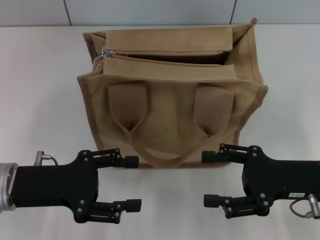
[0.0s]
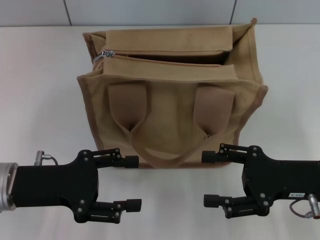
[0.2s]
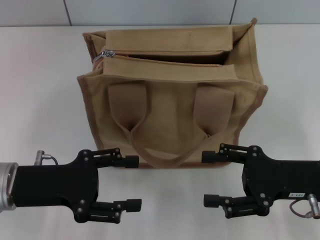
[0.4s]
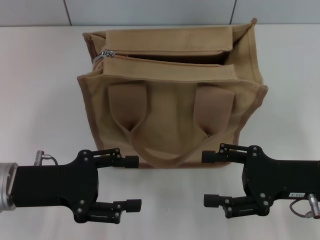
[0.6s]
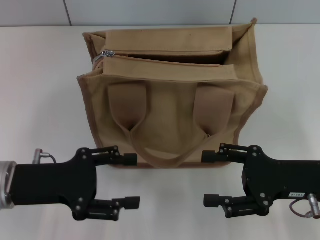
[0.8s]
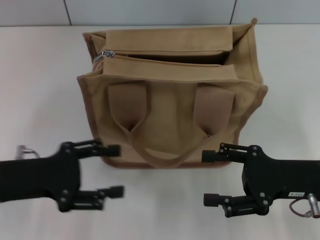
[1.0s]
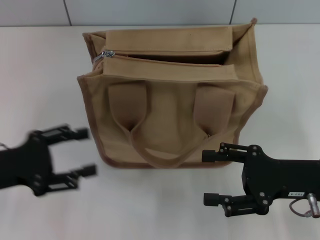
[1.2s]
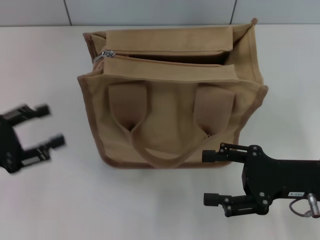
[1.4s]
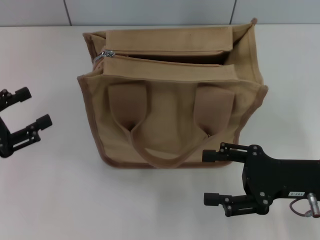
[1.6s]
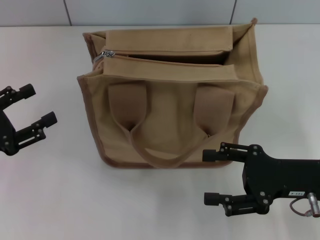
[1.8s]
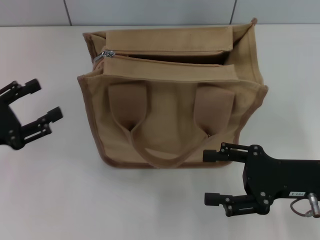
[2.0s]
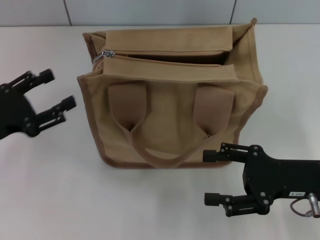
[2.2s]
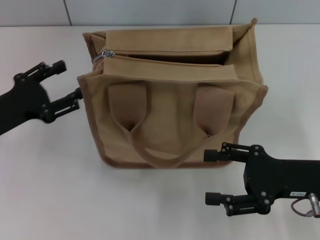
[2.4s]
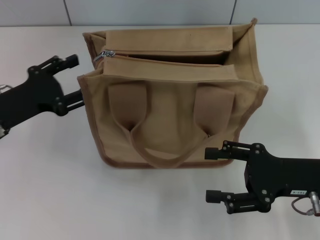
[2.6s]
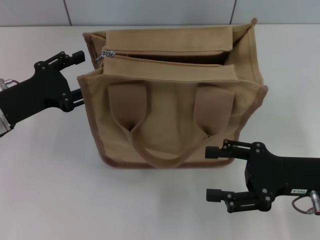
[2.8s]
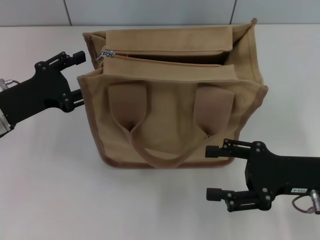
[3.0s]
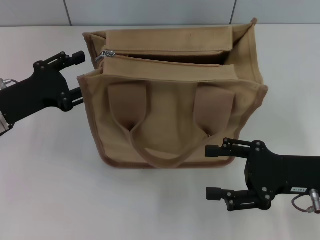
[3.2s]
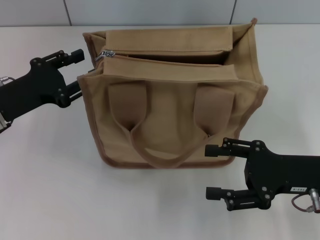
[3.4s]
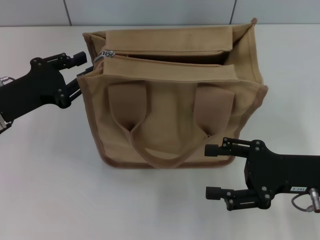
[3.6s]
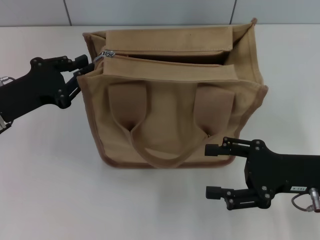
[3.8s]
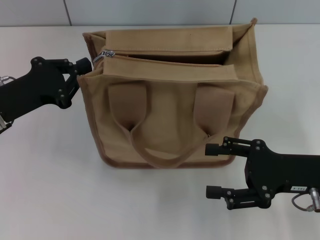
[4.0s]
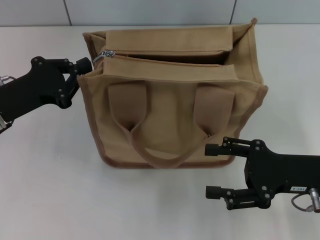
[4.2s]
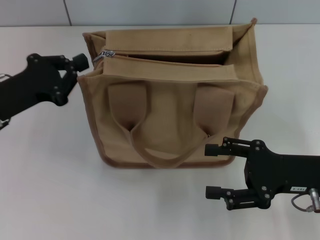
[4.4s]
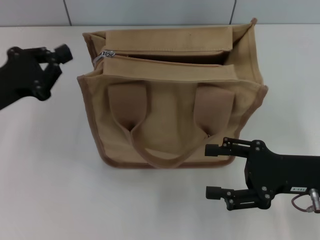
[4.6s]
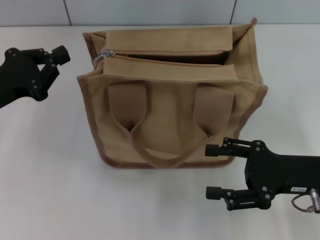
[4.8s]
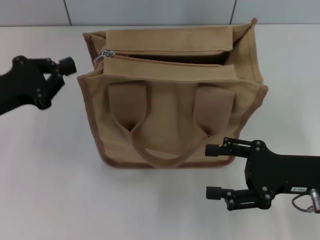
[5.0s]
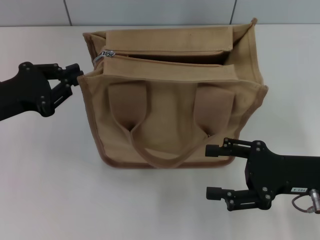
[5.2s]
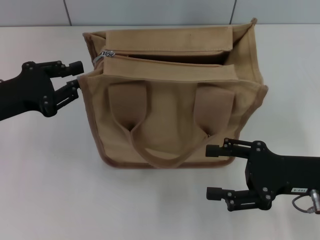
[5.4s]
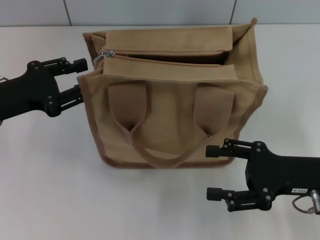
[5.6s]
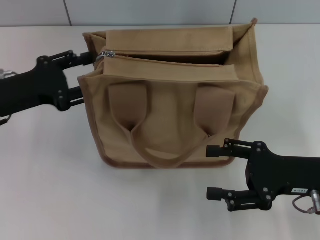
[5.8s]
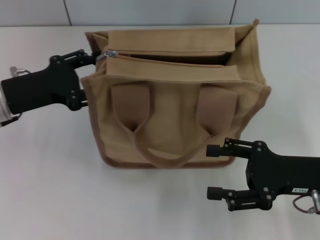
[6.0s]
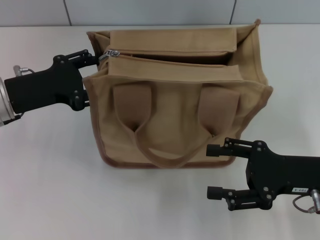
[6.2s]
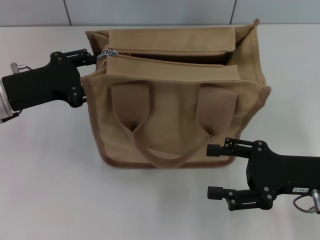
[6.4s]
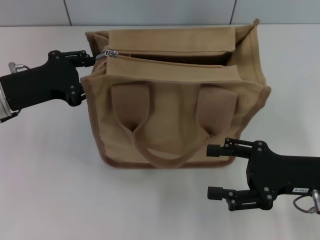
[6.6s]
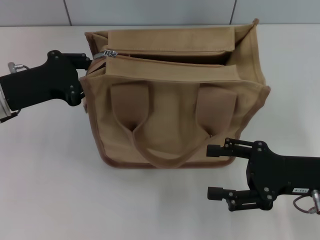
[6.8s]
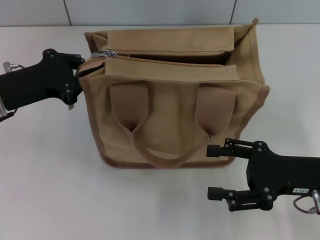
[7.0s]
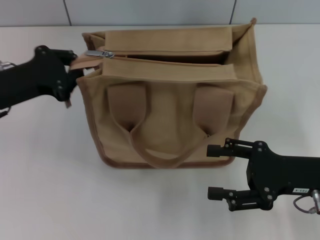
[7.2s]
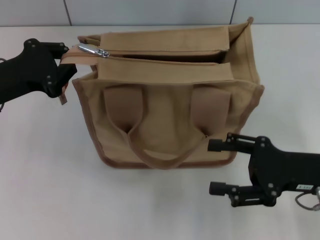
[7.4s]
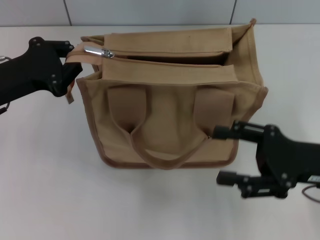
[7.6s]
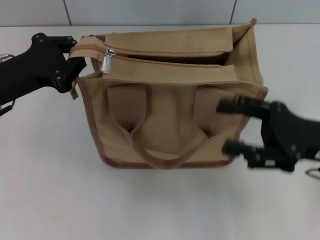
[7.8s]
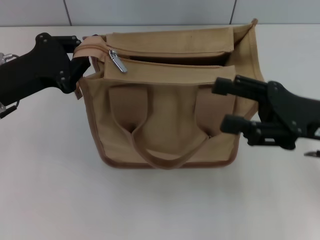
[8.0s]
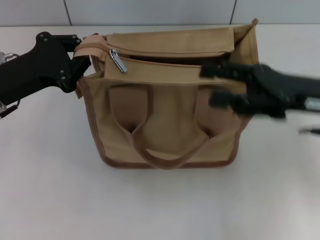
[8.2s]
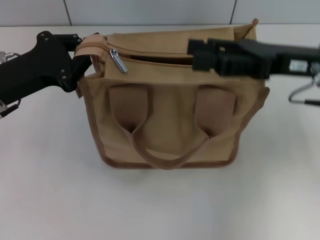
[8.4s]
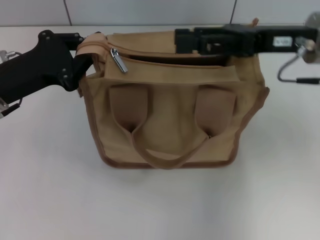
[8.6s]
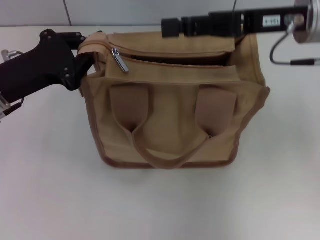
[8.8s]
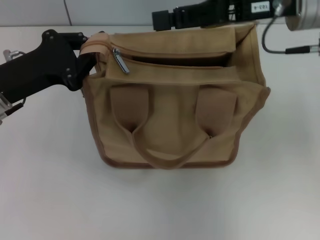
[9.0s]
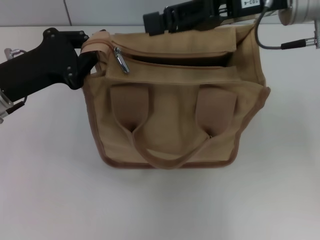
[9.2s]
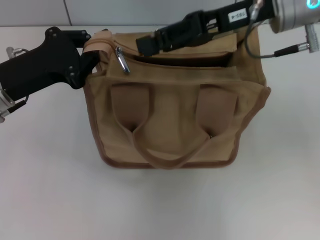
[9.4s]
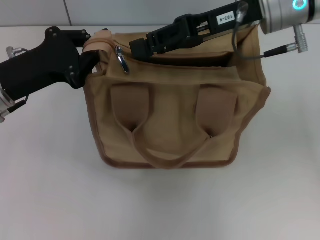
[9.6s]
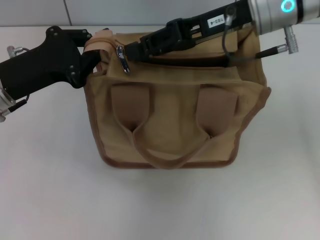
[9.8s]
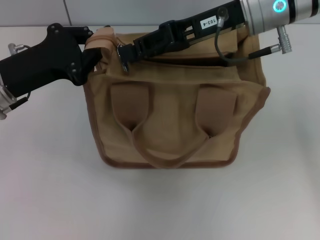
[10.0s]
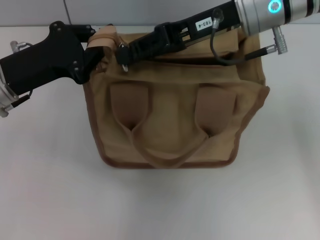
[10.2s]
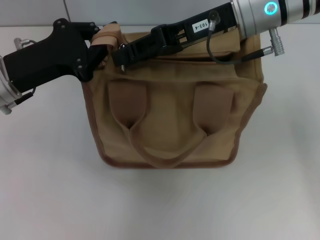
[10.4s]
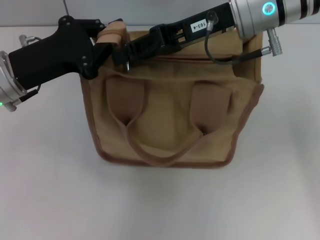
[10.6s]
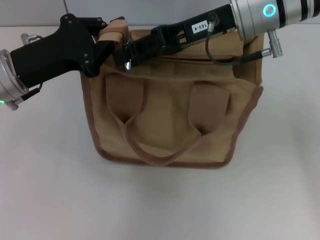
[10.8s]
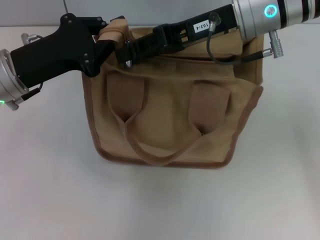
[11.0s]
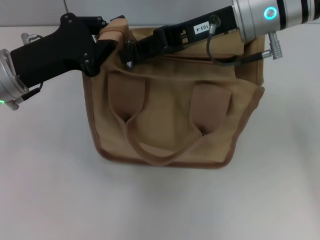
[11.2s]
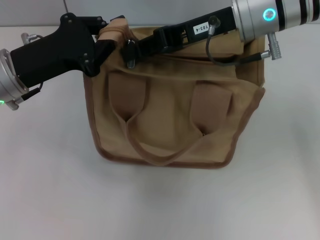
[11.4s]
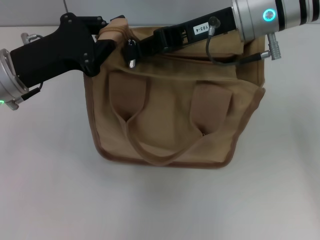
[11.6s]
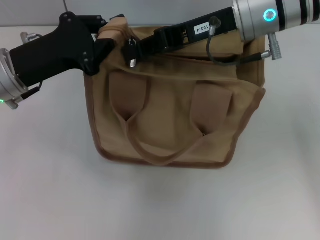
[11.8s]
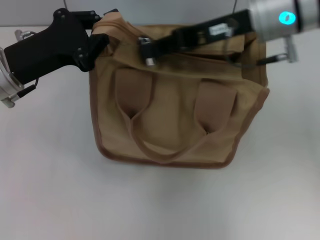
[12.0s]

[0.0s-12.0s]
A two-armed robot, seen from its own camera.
0.0s to 1.6s: The left gripper moves to the left, approximately 10 cm.
1.6s to 3.0s: The left gripper shifts roughly 10 cm forward and to the right.
3.0s to 4.4s: The left gripper closes its fingers.
4.4s to 6.0s: The left gripper opens its fingers.
6.0s to 7.6s: The left gripper closes.
7.6s to 9.0s: The right gripper is displaced forward, upward and to the left by some 20 cm.
9.0s to 10.4s: The right gripper travels to the left by approximately 5 cm.
10.4s to 12.0s: The right gripper closes.

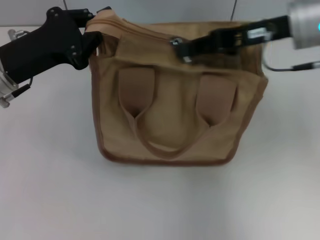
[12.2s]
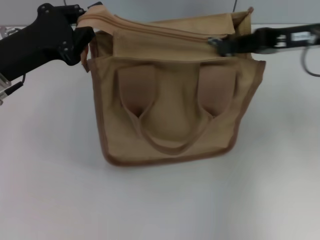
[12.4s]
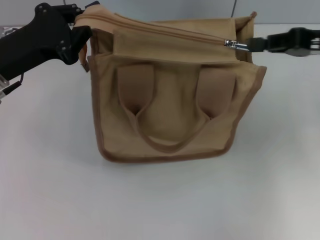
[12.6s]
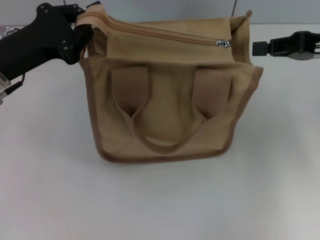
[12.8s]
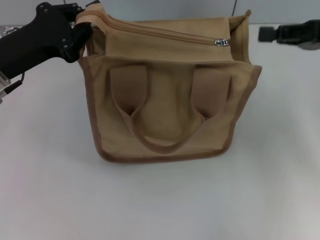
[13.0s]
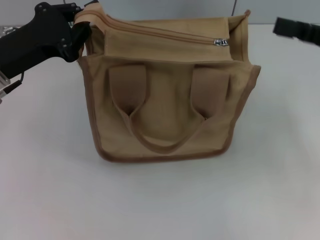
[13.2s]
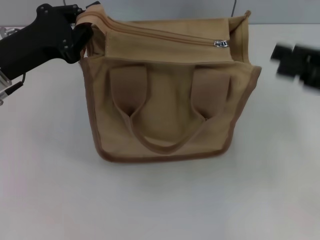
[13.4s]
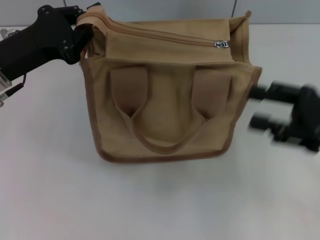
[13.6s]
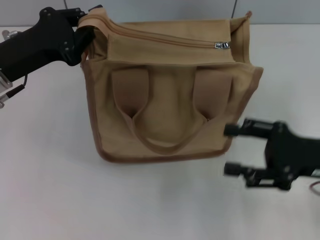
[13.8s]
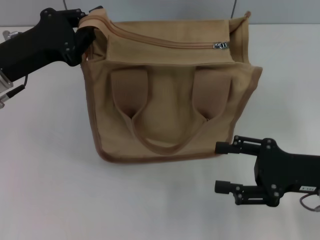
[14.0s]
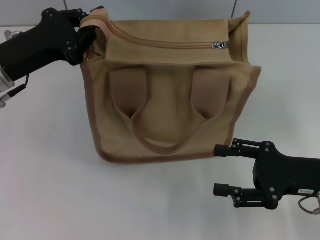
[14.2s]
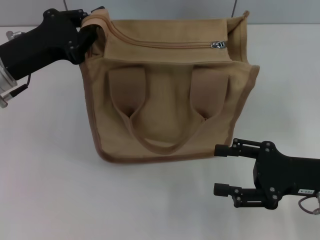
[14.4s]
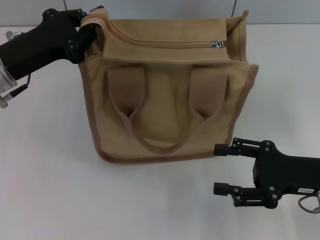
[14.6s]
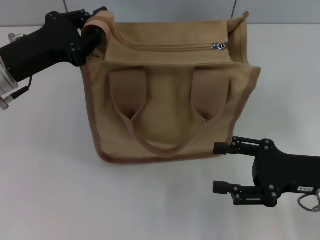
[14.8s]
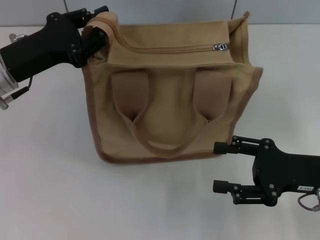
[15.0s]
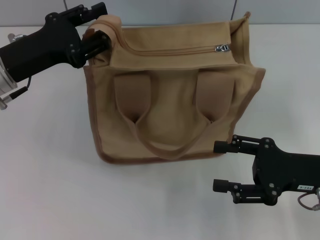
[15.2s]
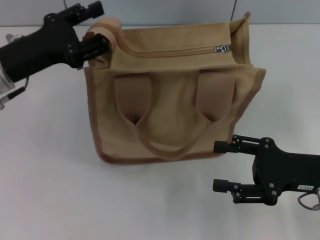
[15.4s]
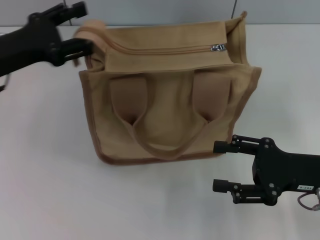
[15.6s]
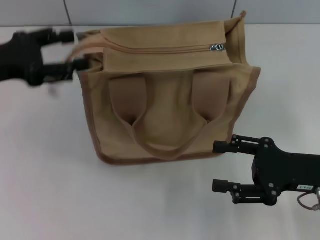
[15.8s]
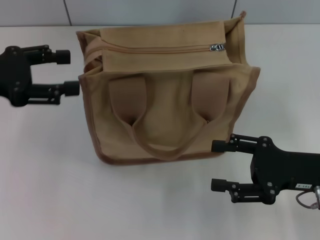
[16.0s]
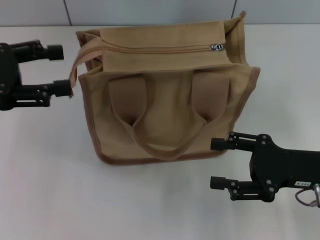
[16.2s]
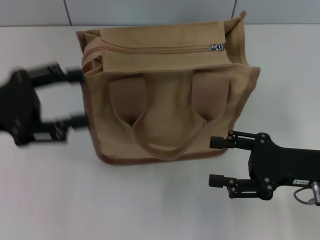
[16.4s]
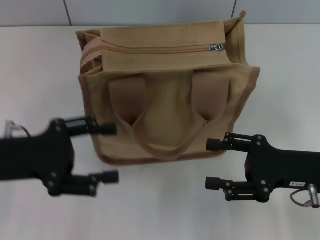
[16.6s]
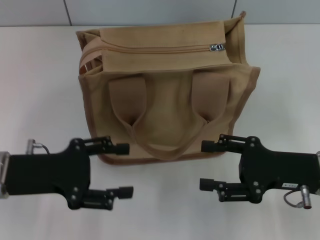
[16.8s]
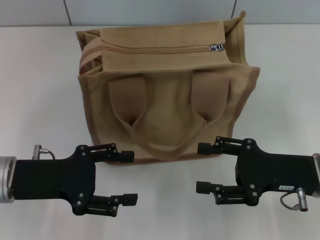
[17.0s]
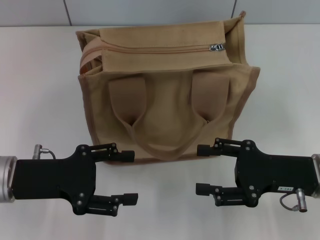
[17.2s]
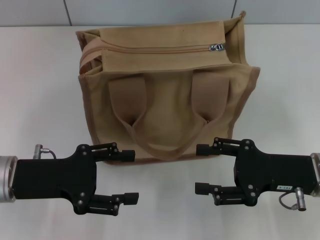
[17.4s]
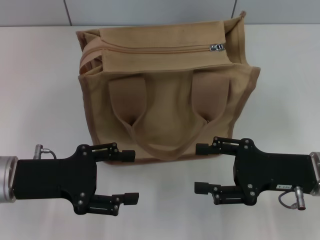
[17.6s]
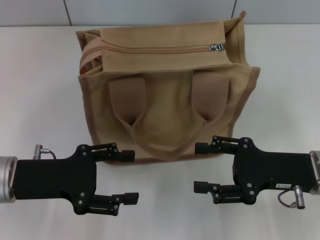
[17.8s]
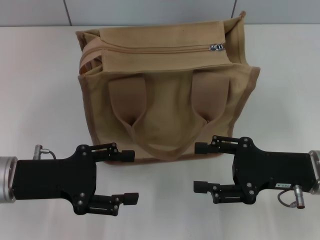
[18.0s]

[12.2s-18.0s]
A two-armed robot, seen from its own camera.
Step, 12.8s to 15.8s: Grab the zipper with your left hand.
12.2s to 13.6s: The right gripper moves backward, to the right and downward, roughly 20 cm, and opens.
13.6s to 15.0s: The right gripper goes roughly 5 cm downward, and opens.
15.0s to 16.6s: The left gripper travels backward by some 10 cm, and opens its fingers.
16.6s to 18.0s: The grippers move only a little.

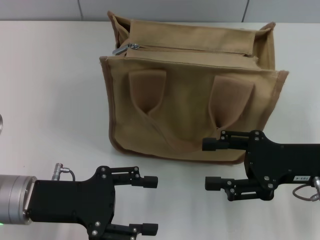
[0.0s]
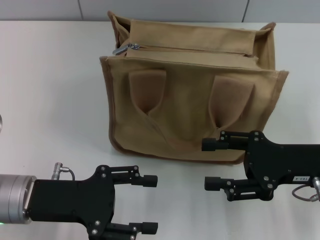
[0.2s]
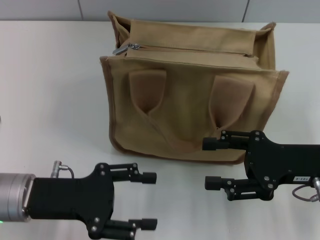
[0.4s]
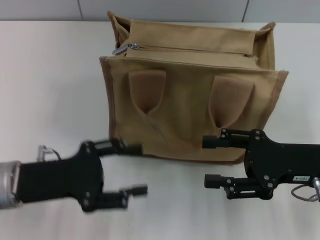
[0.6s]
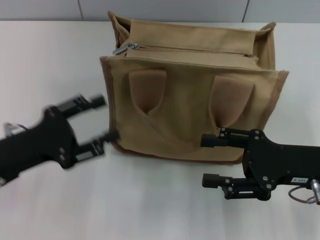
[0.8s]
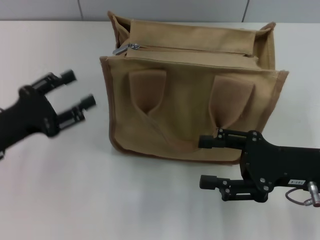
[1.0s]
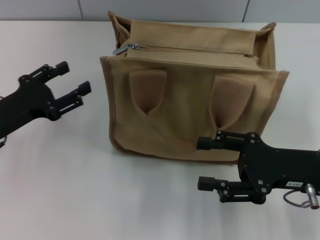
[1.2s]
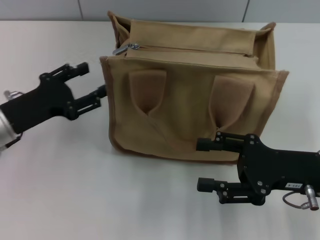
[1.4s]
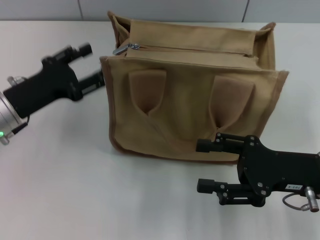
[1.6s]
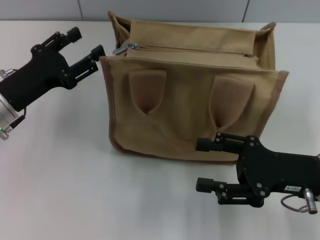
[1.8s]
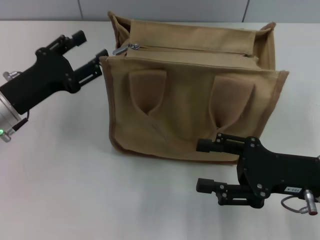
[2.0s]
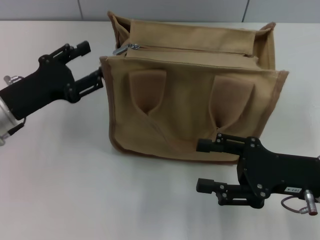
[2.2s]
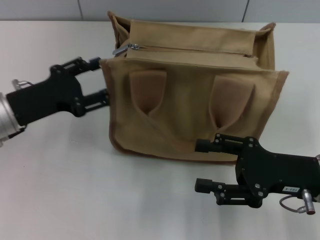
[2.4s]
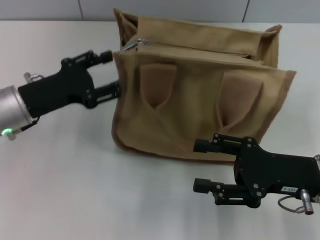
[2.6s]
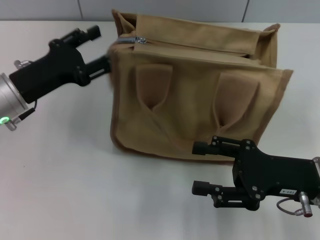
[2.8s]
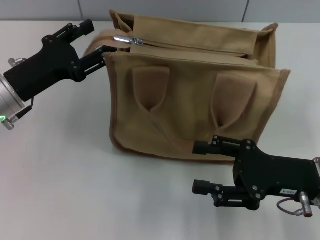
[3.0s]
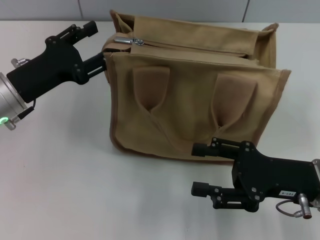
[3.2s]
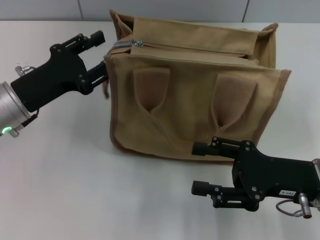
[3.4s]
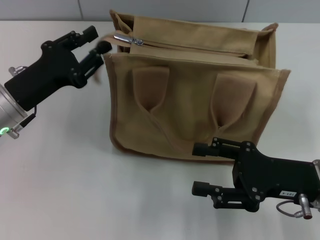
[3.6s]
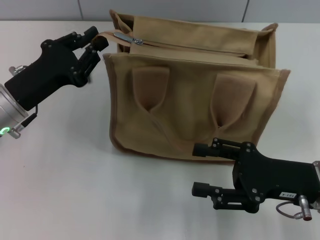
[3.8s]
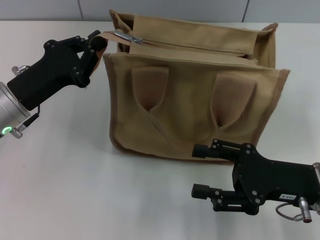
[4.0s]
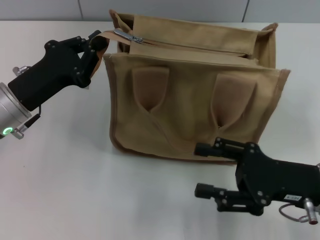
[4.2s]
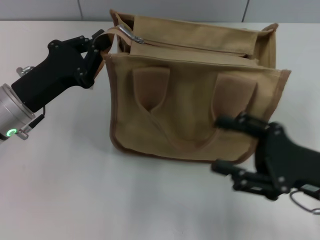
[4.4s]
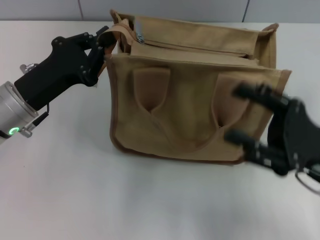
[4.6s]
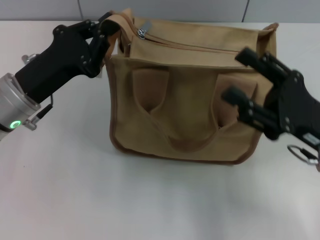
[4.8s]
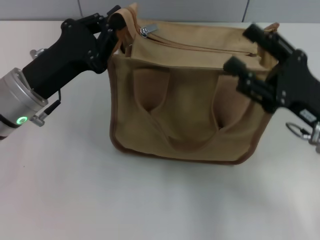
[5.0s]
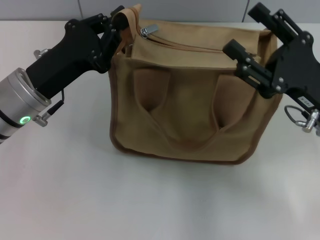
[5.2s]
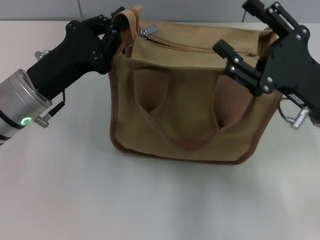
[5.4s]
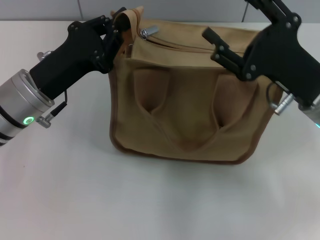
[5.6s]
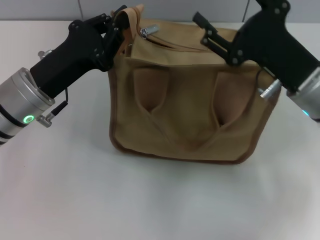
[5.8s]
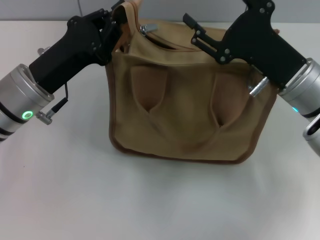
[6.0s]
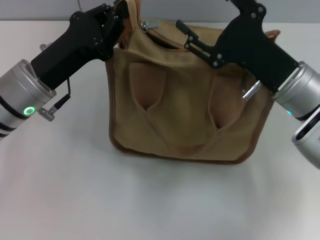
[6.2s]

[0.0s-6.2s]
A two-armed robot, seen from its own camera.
0.0s to 1.6s: The left gripper is displaced forward by roughly 10 cm.
1.6s to 3.2s: There are only small adjustments of the grippers.
3.2s to 4.6s: The left gripper closes.
4.6s to 6.2s: The right gripper shifts about 10 cm forward and to the left.
